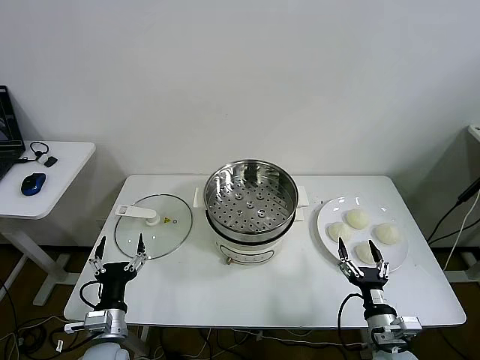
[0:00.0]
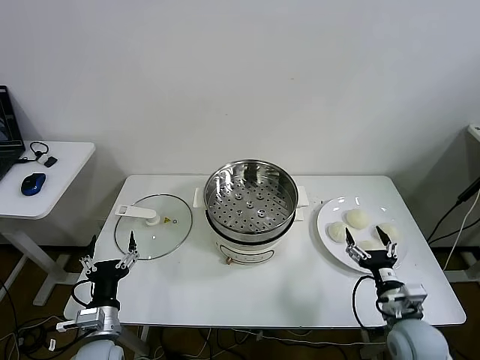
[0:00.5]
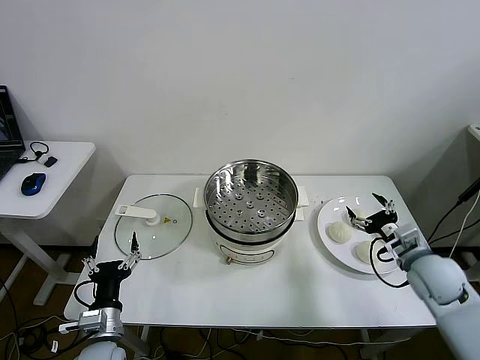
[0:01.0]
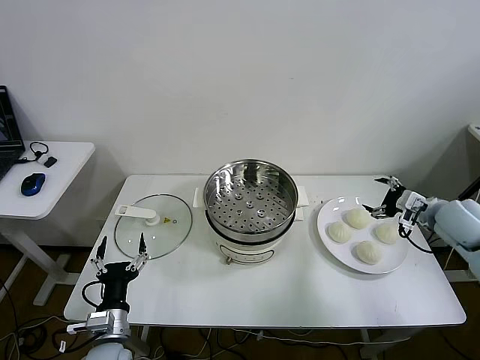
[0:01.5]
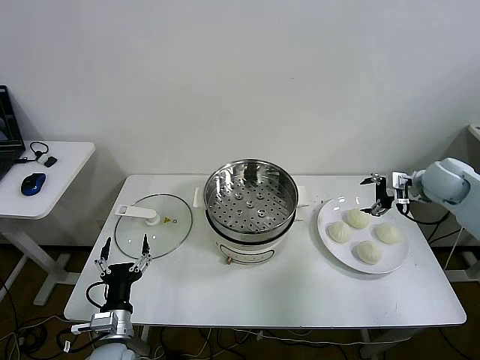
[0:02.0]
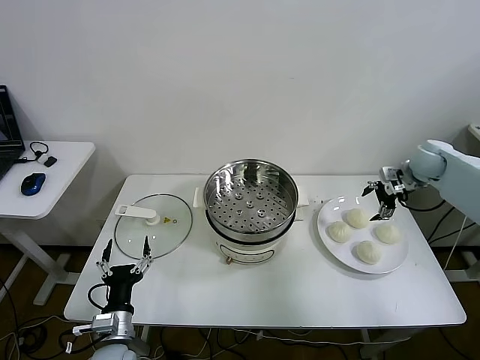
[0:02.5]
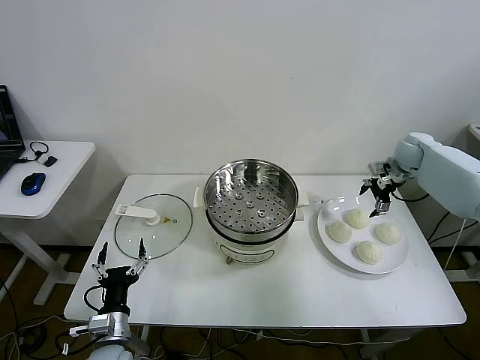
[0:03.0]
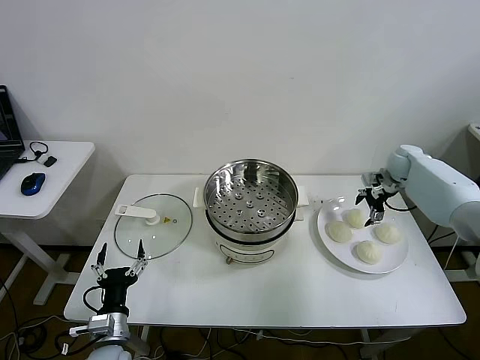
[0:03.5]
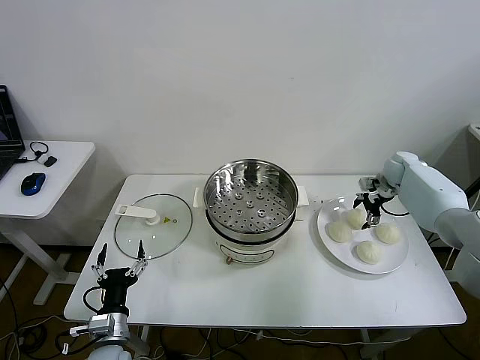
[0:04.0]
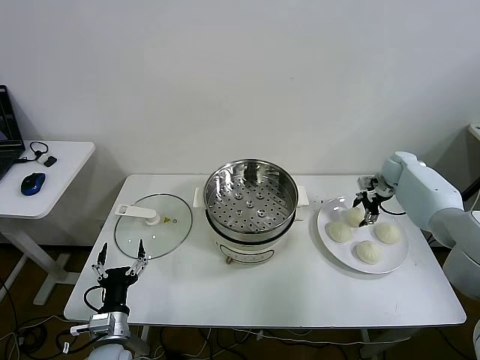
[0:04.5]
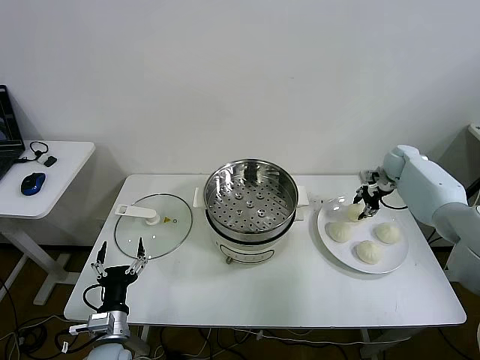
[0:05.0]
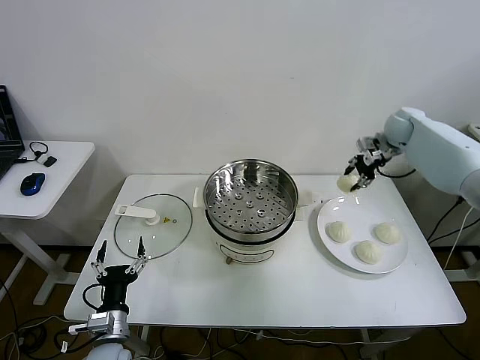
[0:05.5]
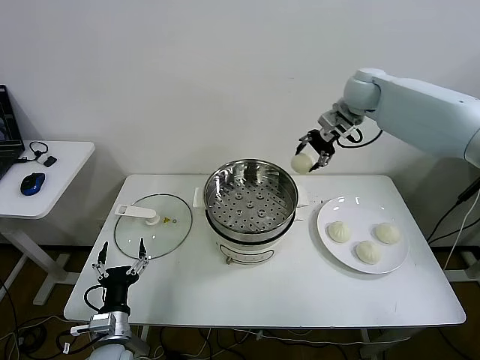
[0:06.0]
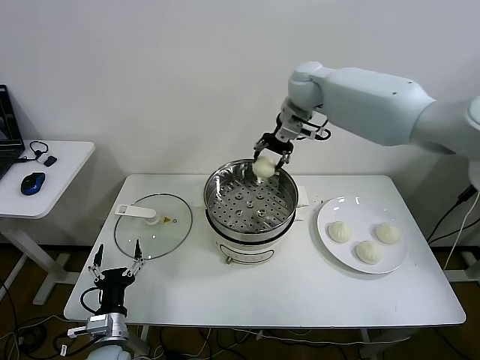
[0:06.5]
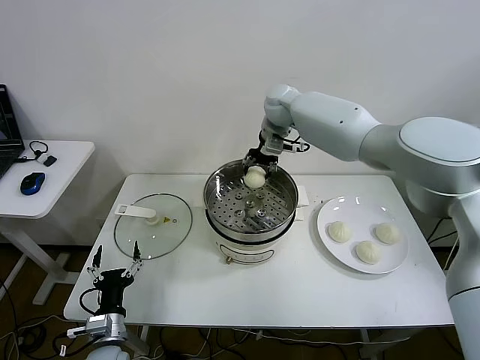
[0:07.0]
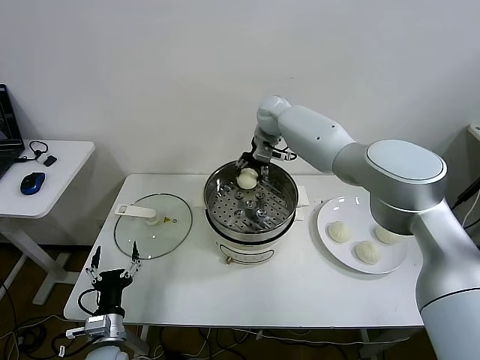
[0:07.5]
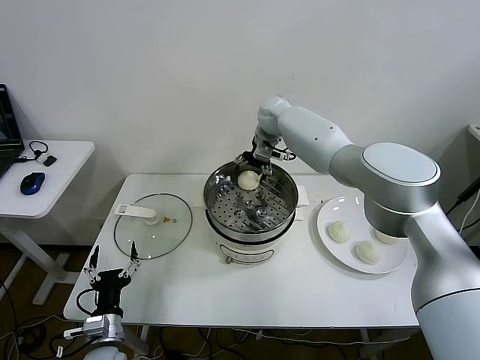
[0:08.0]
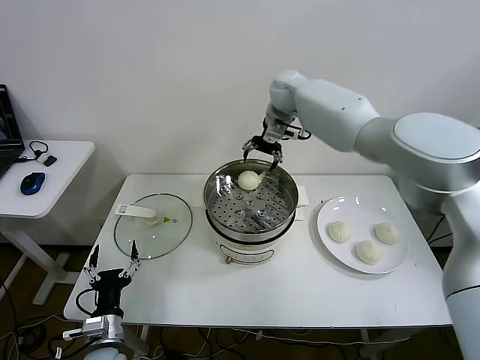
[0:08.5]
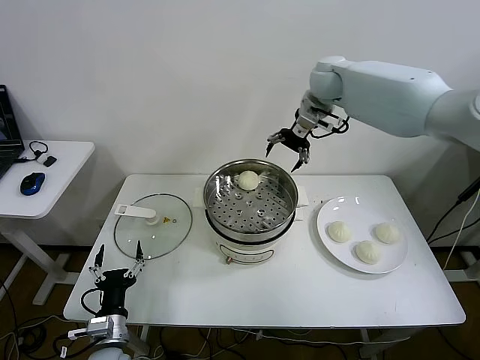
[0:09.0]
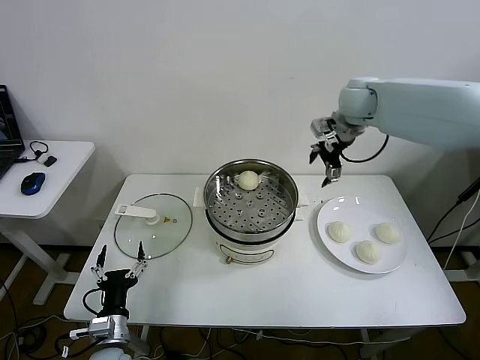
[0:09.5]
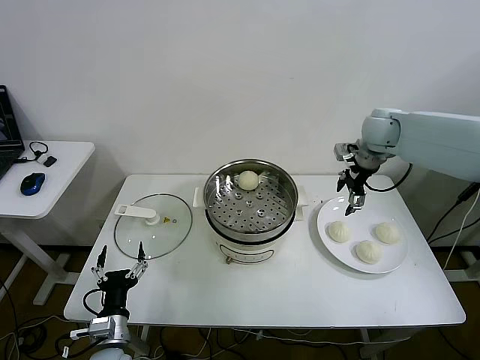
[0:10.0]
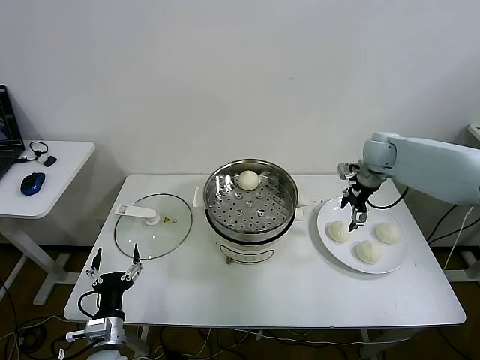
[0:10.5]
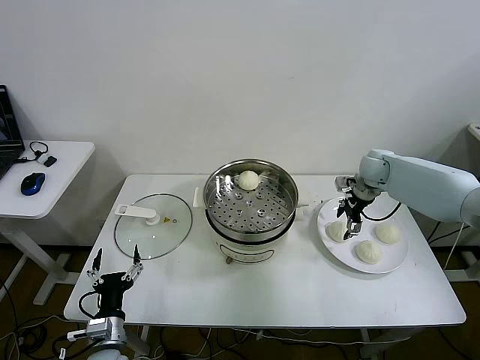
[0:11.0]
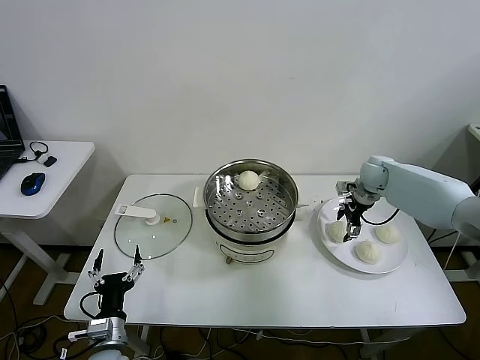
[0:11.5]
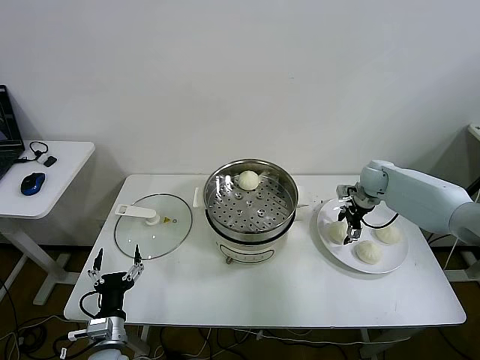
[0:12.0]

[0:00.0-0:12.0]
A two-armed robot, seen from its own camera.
Step, 0:00.0 to 0:04.5: Grasp the baozi in the plate with right gripper.
Step, 0:05.0 to 0:08.0: Place the baozi on the steamer with right gripper.
0:02.0 to 0:04.0: The right gripper is displaced forward and downward by about 15 cm.
0:04.0 to 0:06.0: The right gripper travels upward and to the left by approximately 30 cm, and closes.
0:06.0 to 0:08.0: The right gripper moves to the left and downward, roughly 20 cm, and opens its fingers.
0:08.0 to 0:10.0: The right gripper shifts roughly 25 cm to the right and backward.
0:10.0 to 0:12.0: The right gripper heads downward, covering roughly 15 cm.

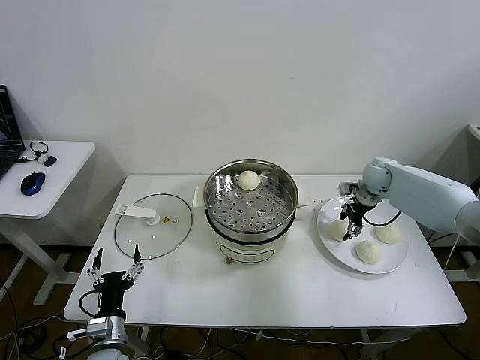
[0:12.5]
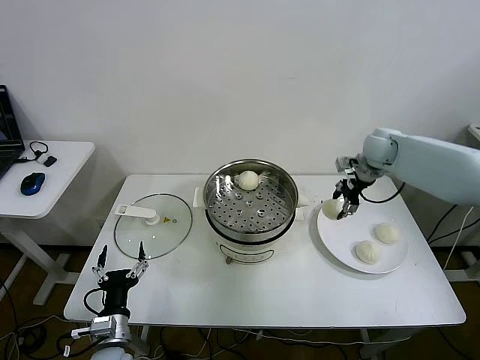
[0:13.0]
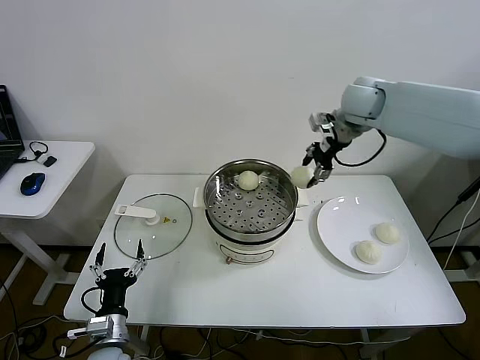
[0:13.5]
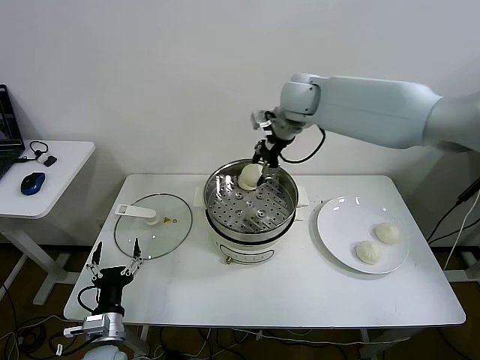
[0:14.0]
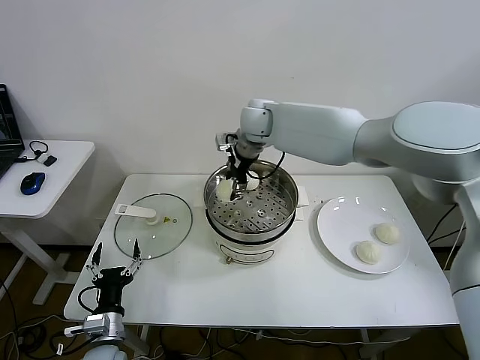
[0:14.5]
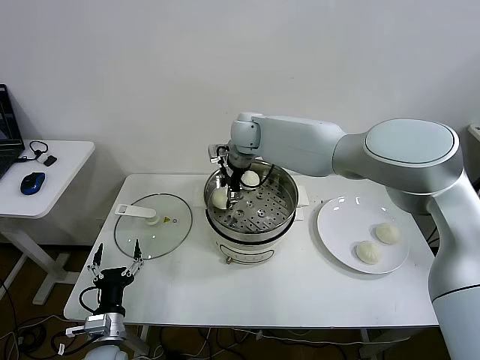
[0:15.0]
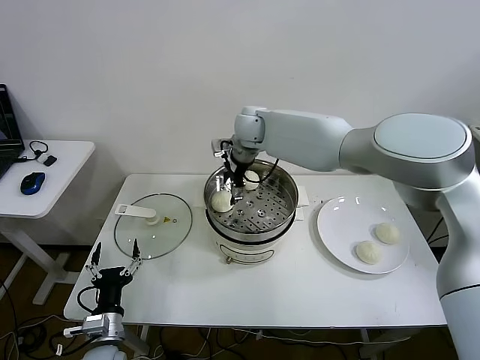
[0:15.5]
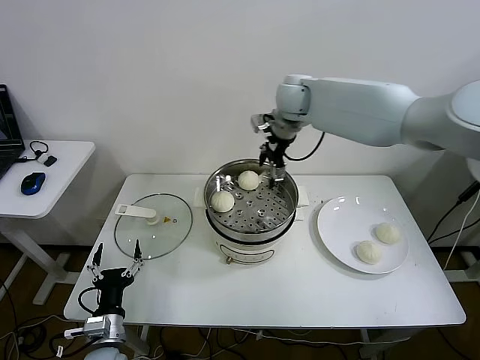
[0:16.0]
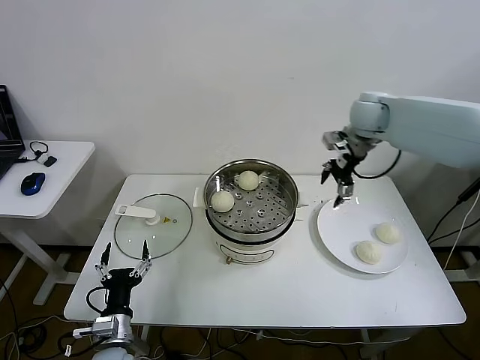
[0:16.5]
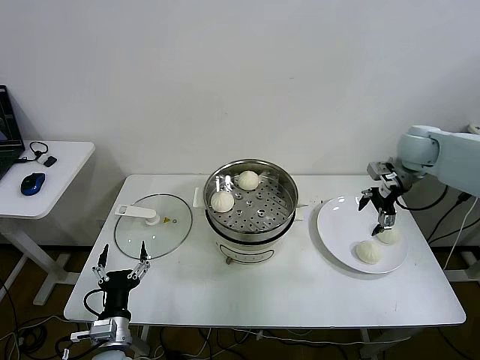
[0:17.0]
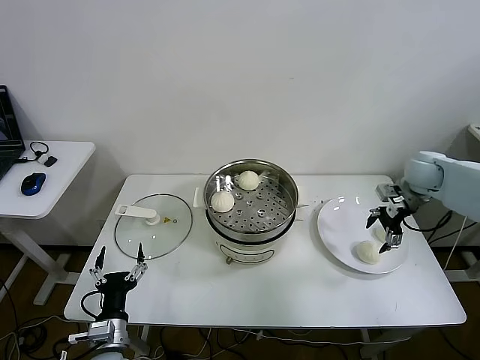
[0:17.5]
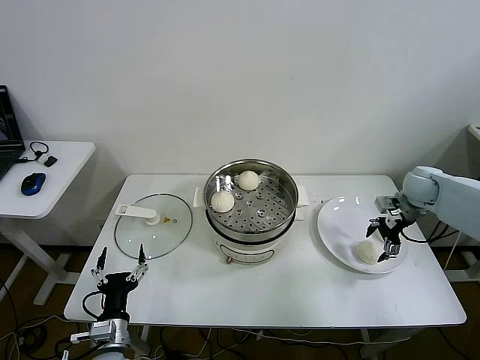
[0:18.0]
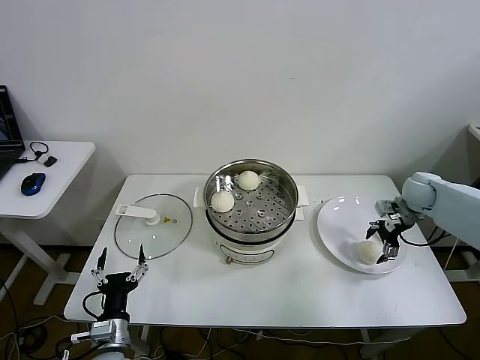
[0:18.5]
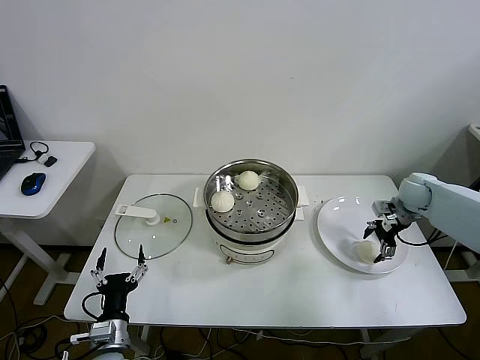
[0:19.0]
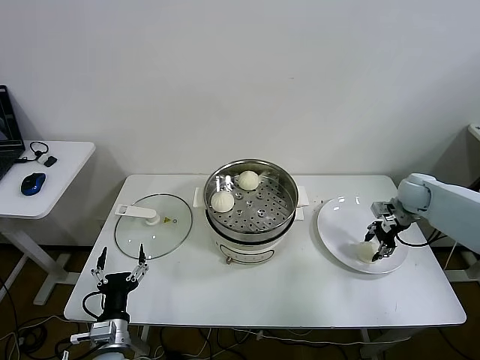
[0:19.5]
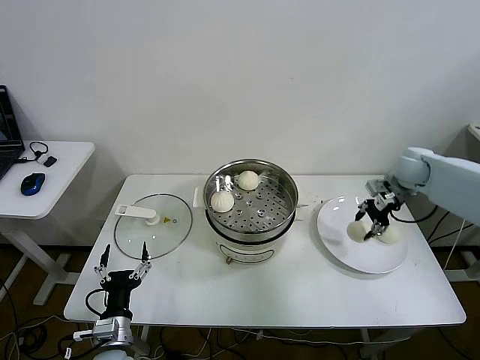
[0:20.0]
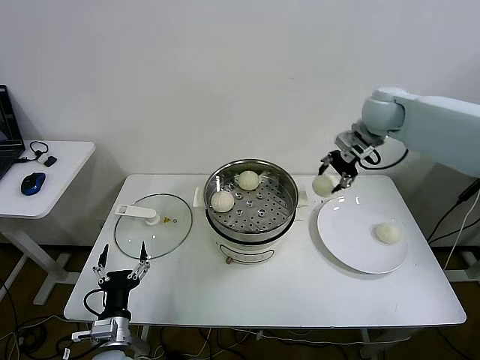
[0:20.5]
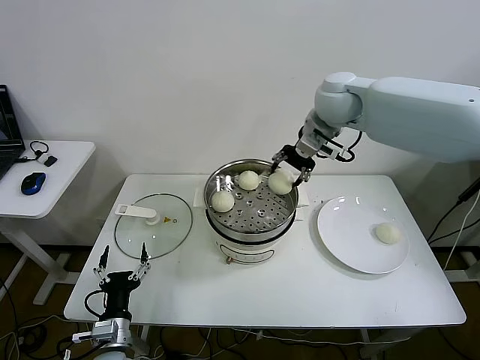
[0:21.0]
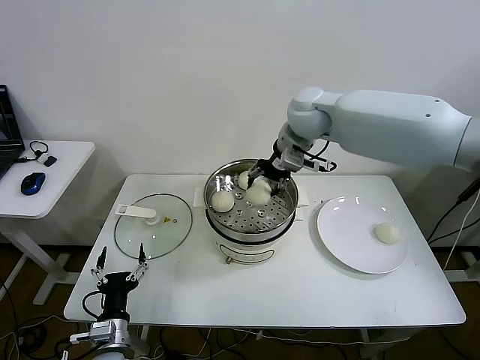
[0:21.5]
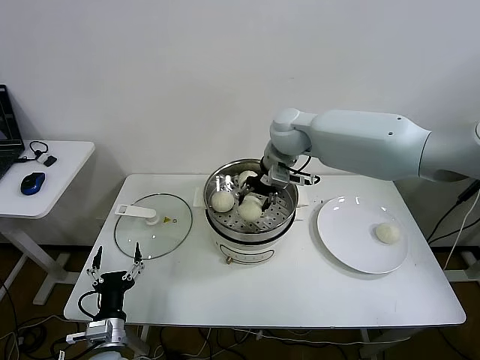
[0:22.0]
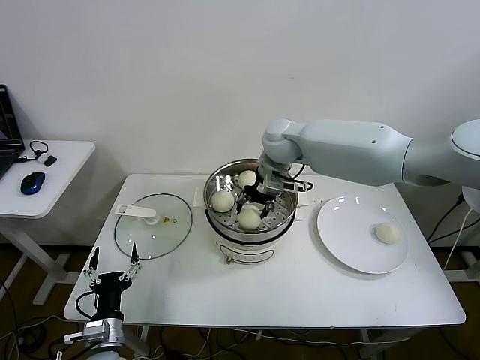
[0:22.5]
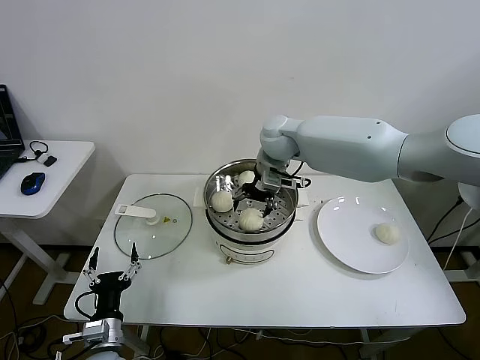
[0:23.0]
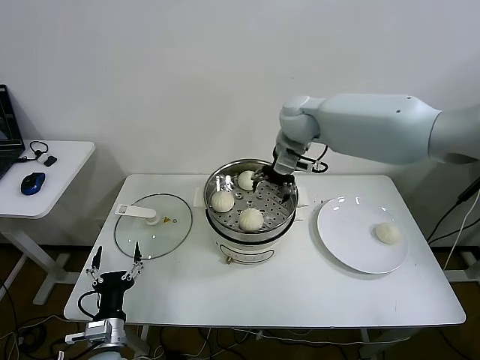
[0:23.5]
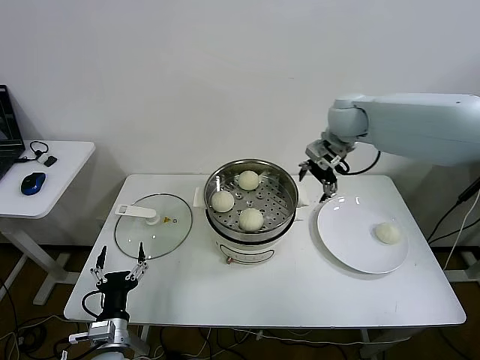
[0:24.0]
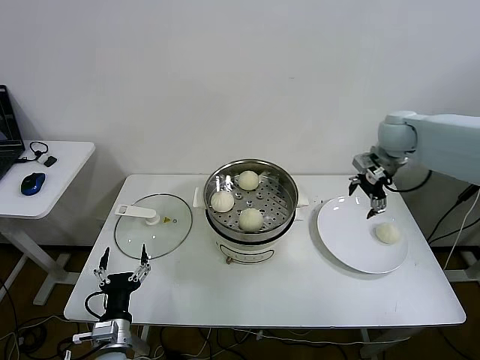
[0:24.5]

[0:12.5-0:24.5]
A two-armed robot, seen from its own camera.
Step, 0:12.5 to 0:15.5: Place the baozi on the steamer with right gripper.
Step, 0:16.0 to 0:19.5: Grasp the baozi in the plate with right gripper.
Step, 0:20.0 to 0:23.0: Place the baozi on the steamer with right gripper.
0:12.5 to 0:14.5: The right gripper travels to the left and upward by roughly 40 cm.
0:14.5 to 0:16.5: The right gripper moves to the right, some 25 cm, and opens up.
0:16.5 to 0:18.5: The right gripper is displaced downward and to the right by some 25 cm.
0:18.5 to 0:20.5: The right gripper moves upward and to the left, approximately 25 cm, and closes up.
0:20.5 to 0:22.5: The right gripper heads to the left, covering some 20 cm.
0:22.5 to 0:24.5: The right gripper heads to the right, covering roughly 25 cm, and opens up.

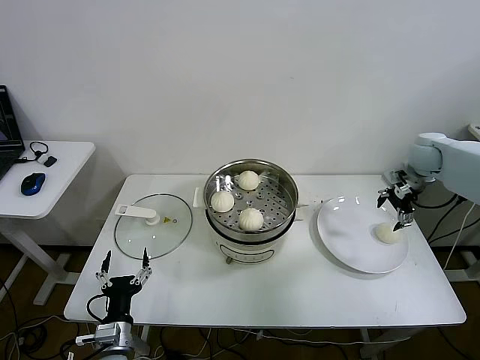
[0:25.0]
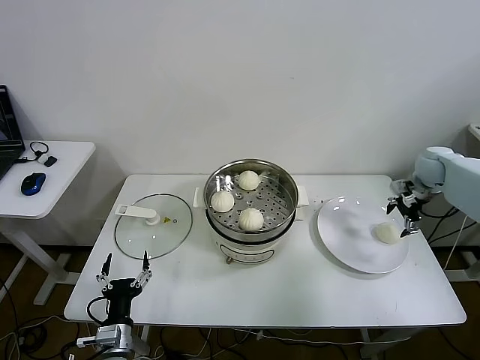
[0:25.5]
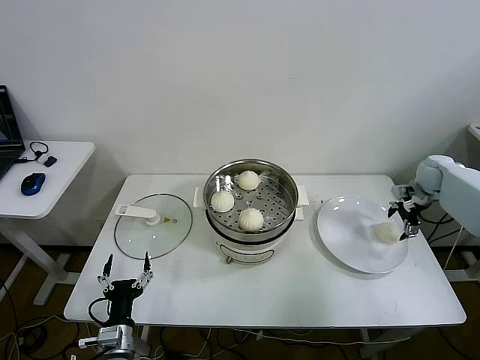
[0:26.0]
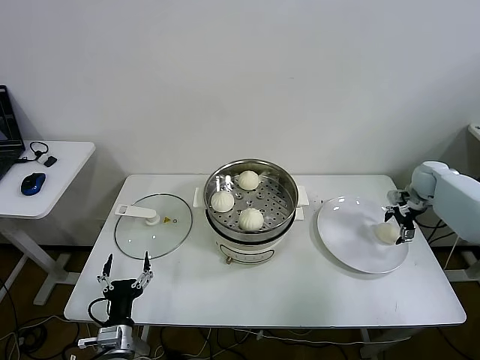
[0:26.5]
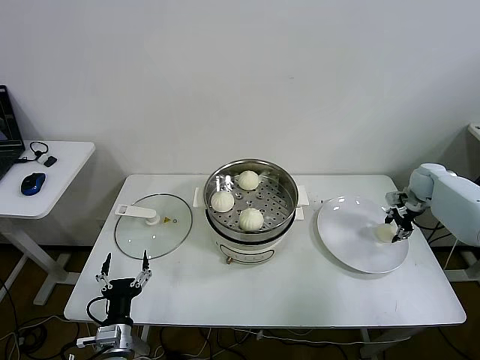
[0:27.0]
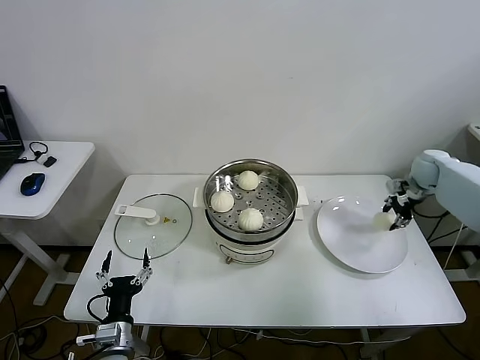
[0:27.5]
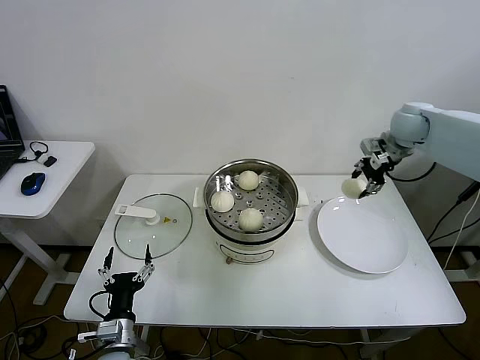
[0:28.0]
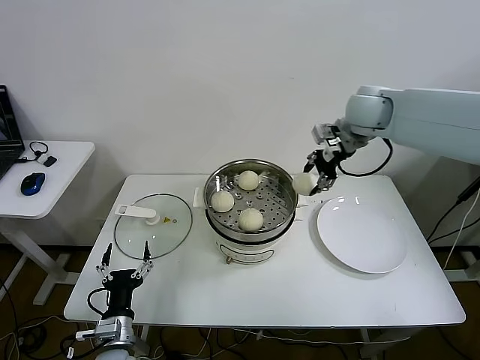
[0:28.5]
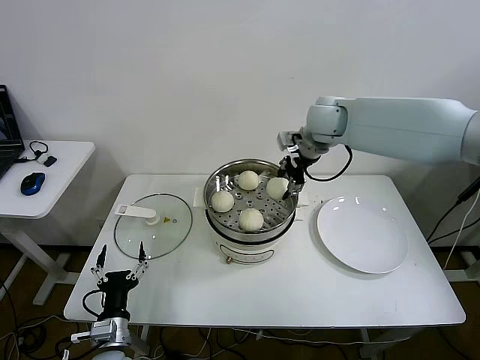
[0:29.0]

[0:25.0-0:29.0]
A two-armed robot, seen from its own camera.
Step, 0:25.0 to 0:27.0: Grasp the baozi in the plate with right gripper.
0:25.0 to 0:27.0: The right gripper travels downward and to the right by some 15 cm, and closes.
0:27.0 to 0:29.0: The right gripper shifts roughly 40 cm to the left and upward.
